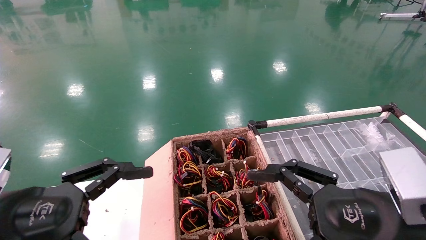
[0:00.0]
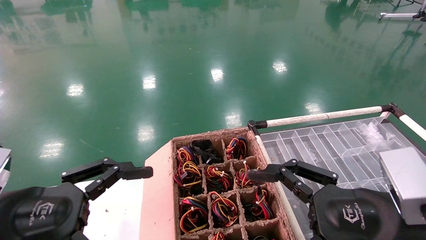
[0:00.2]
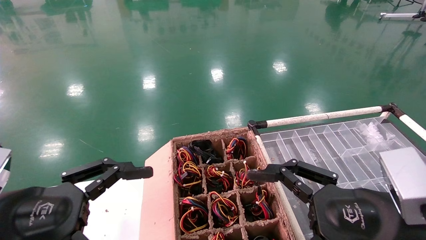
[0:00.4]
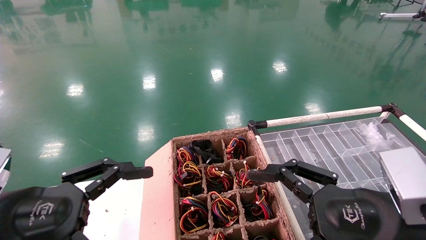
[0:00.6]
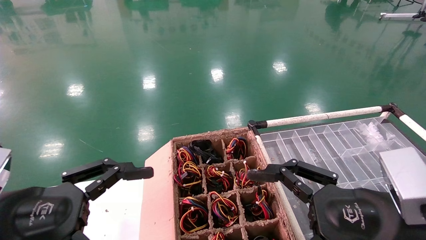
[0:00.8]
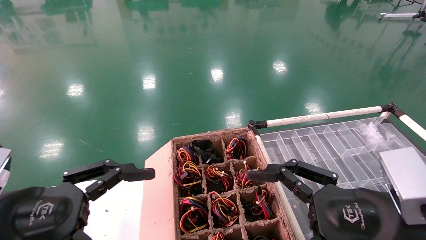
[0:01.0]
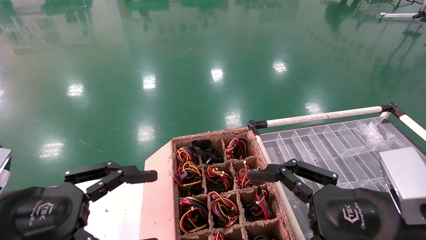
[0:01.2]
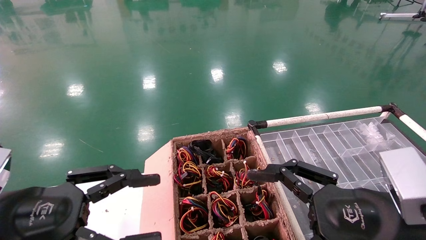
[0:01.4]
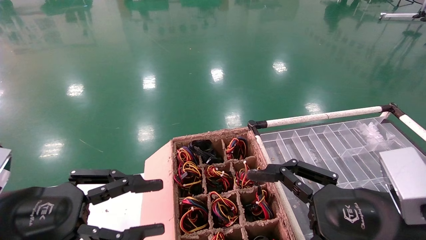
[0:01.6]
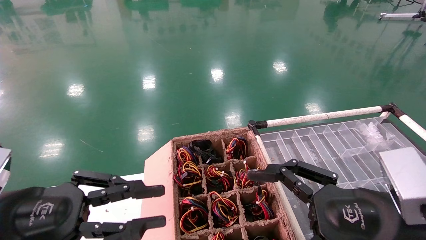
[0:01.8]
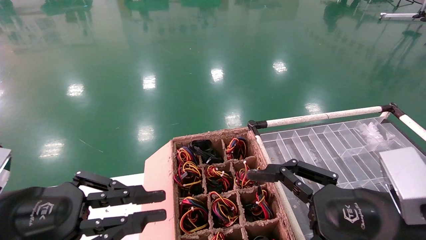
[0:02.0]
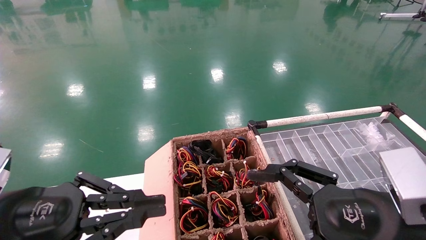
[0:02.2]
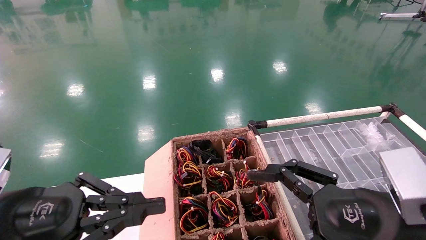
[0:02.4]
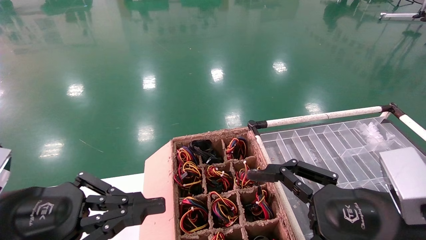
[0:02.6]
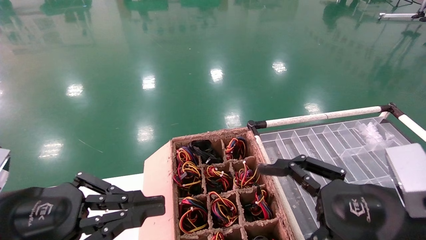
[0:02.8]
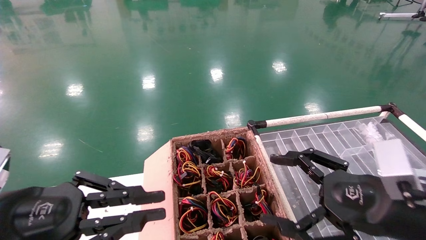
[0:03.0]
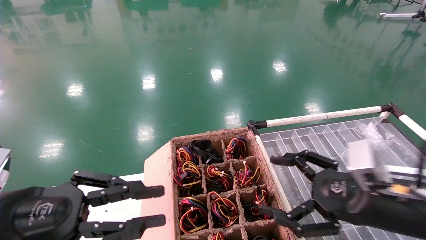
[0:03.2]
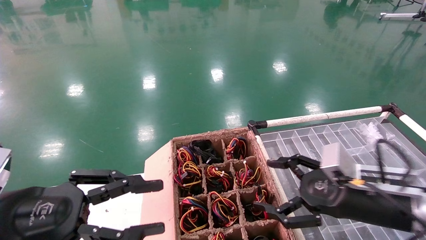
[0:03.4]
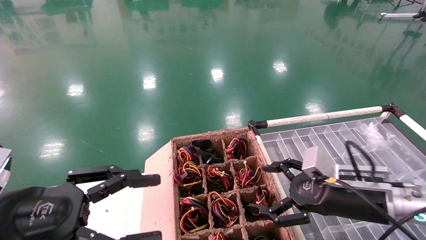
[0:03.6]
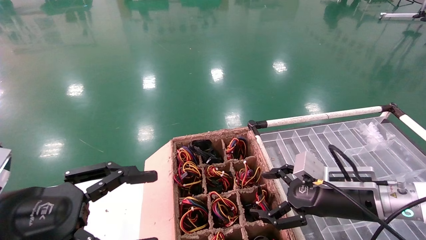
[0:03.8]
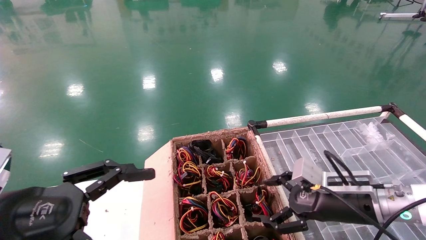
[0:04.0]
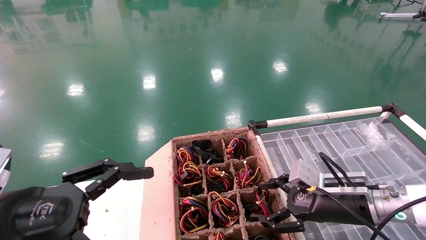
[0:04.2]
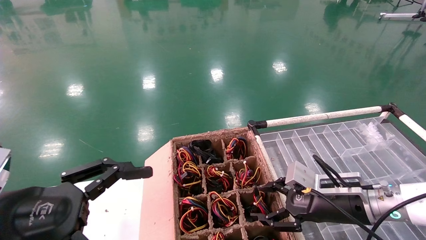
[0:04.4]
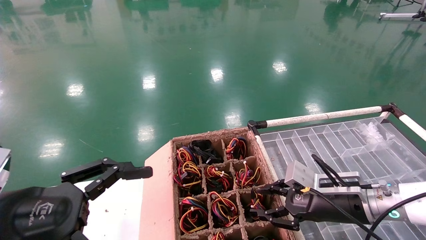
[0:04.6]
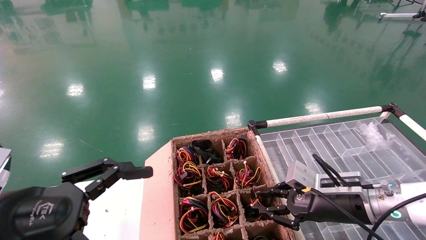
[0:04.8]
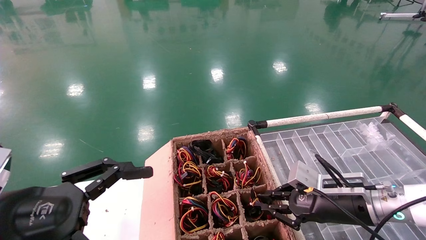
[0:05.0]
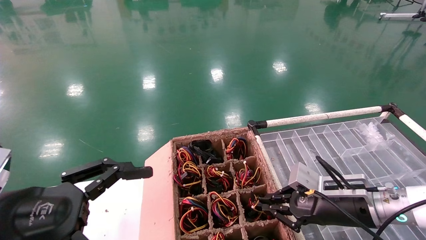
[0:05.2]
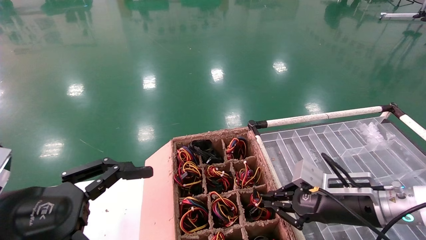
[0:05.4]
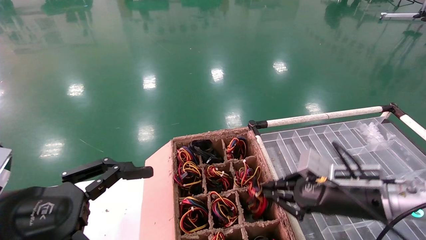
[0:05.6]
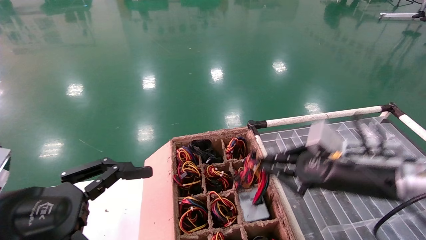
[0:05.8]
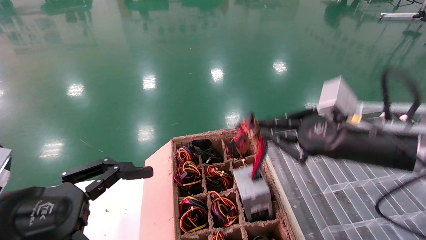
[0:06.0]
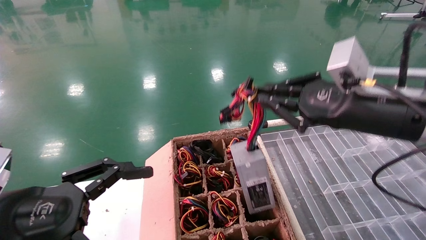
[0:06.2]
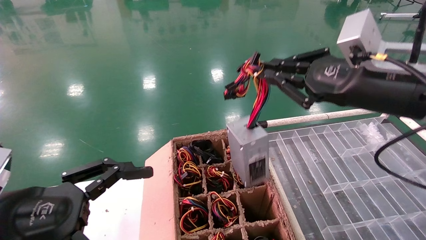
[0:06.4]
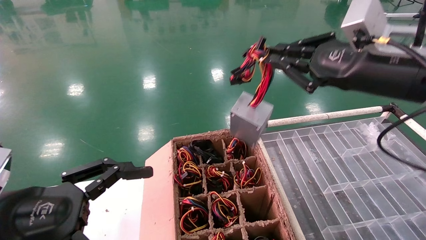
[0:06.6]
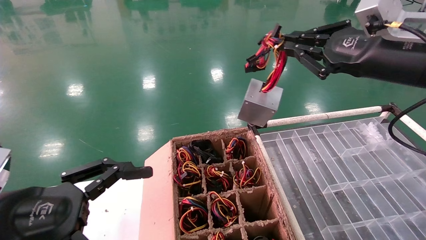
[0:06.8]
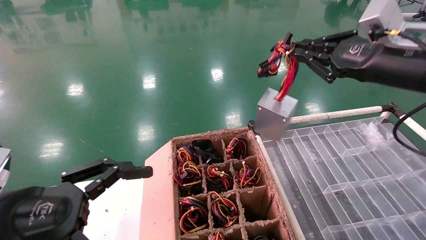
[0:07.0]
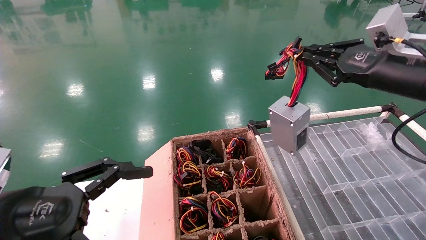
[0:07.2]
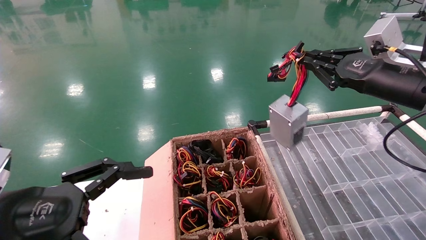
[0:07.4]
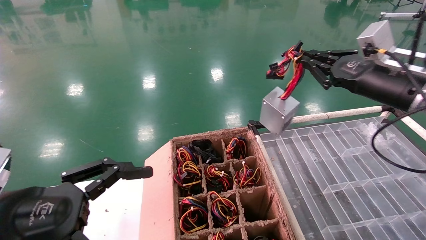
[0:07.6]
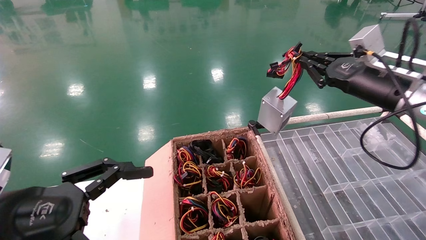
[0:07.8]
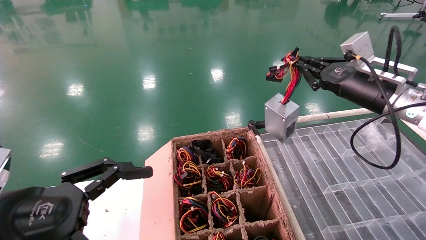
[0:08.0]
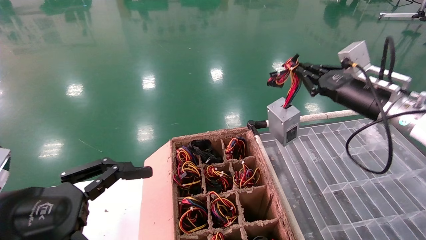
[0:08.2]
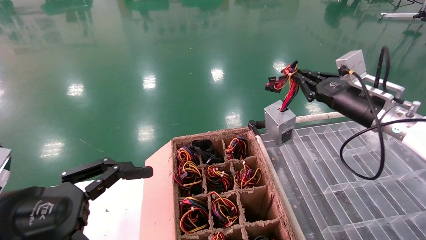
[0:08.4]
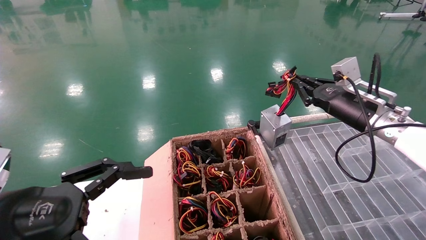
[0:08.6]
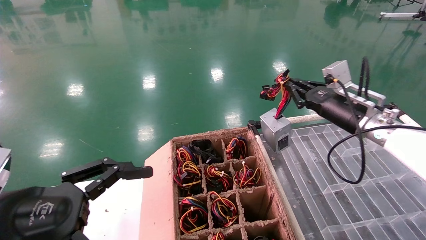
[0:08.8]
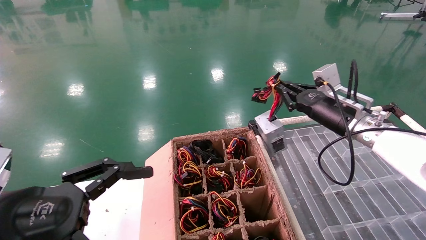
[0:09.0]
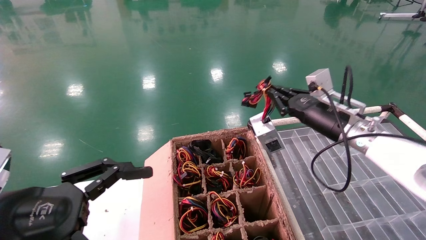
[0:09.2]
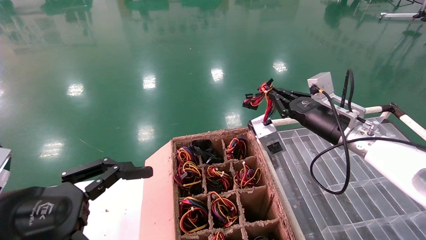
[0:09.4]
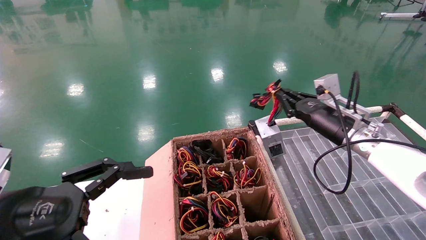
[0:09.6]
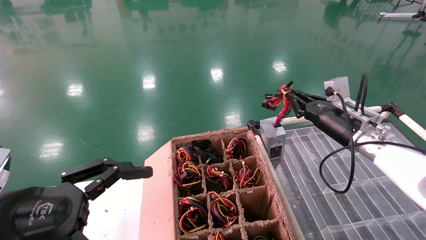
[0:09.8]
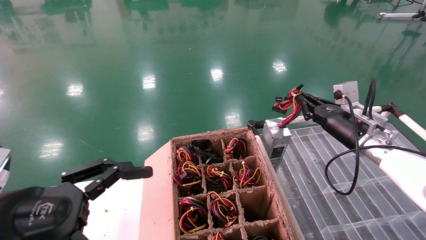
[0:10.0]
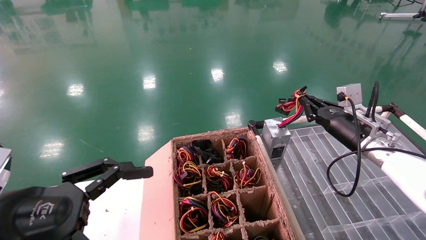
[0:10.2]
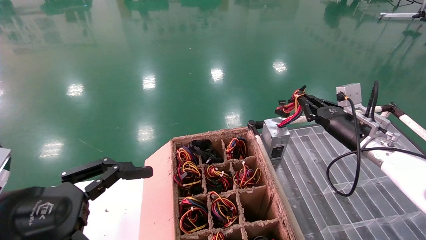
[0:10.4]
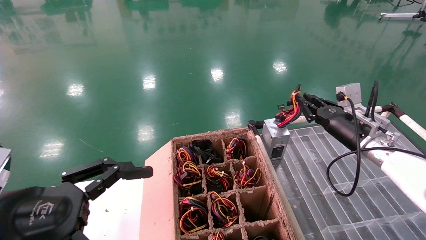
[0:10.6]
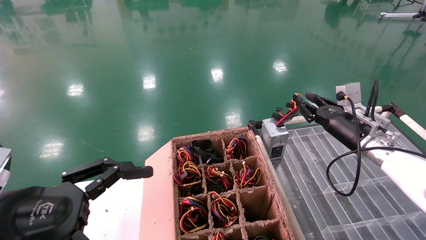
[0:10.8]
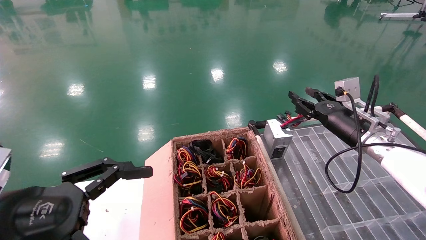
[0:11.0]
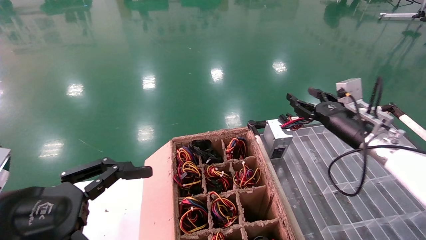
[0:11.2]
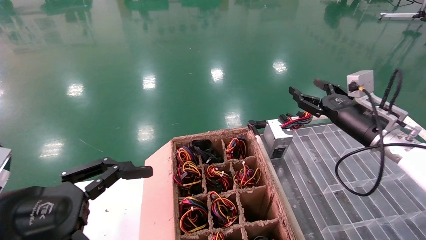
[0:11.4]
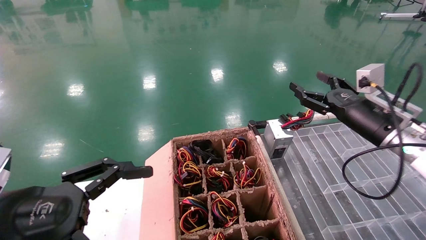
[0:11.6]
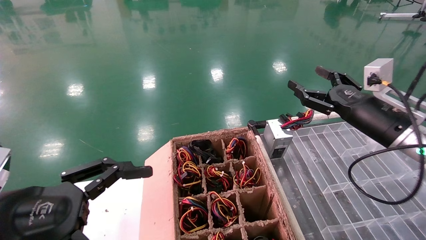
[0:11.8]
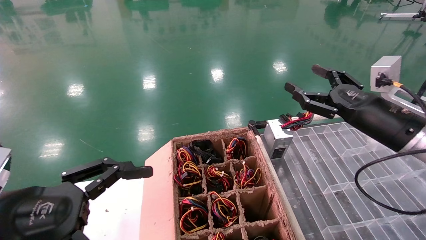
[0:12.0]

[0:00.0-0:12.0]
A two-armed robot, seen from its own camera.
Step, 0:02.6 to 0:05.2: Grab and lift the power supply from the large box.
Step, 0:05.4 to 0:10.6: Place the power supply on the operating table.
0:00.0 to 0:01.6: The left gripper closes.
0:01.6 to 0:03.0: The left gripper closes.
0:03.0 to 0:04.4: The right gripper travels forward and downward by approximately 15 cm, while the left gripper opens.
0:04.4 to 0:06.0: The right gripper is displaced upward by about 15 cm, and closes its fingers.
0:06.0 to 0:07.6: The right gripper heads forward, to the right and upward, covering about 15 cm.
0:07.6 to 0:09.0: The right gripper travels downward, forward and to the left by some 10 cm.
0:09.0 to 0:10.4: The right gripper ends up about 5 cm from where it was.
0:10.4 to 0:12.0: The right gripper shifts roughly 10 cm backward and upward, and opens its fingers.
